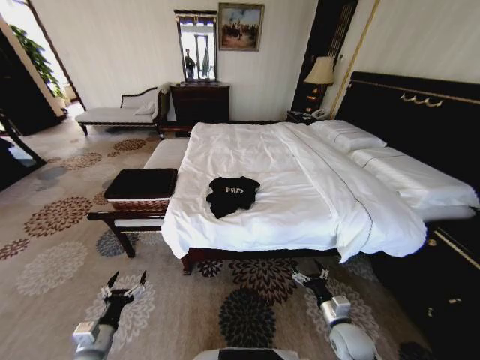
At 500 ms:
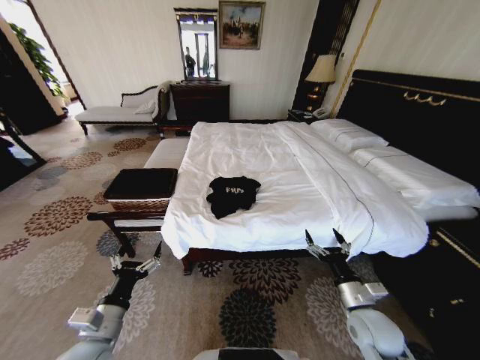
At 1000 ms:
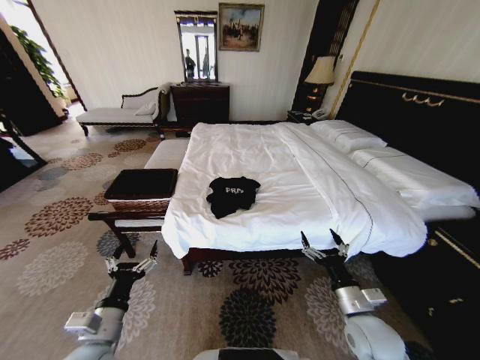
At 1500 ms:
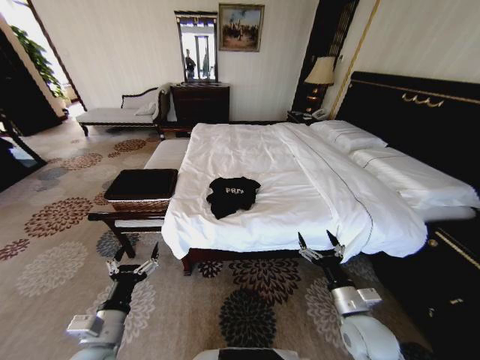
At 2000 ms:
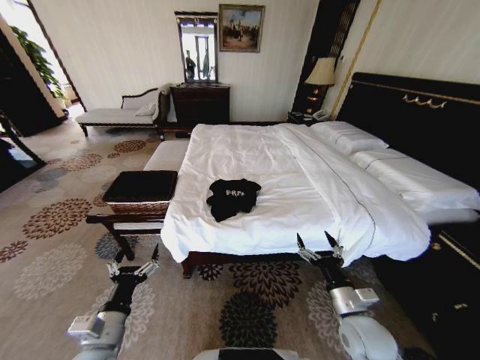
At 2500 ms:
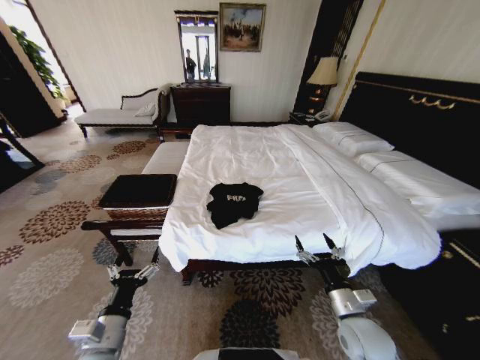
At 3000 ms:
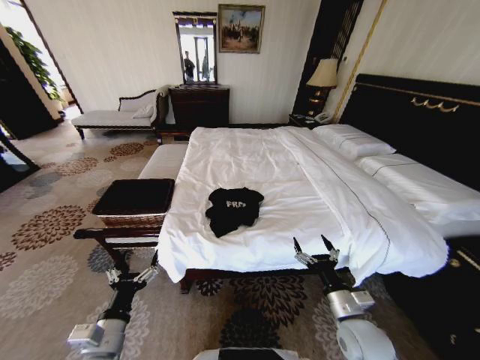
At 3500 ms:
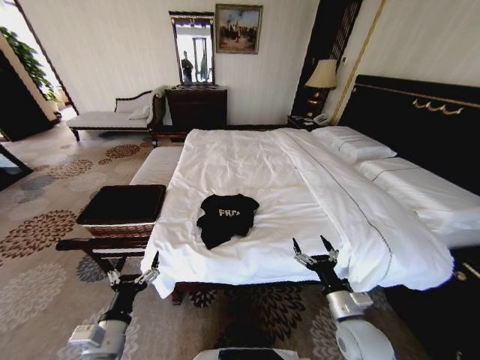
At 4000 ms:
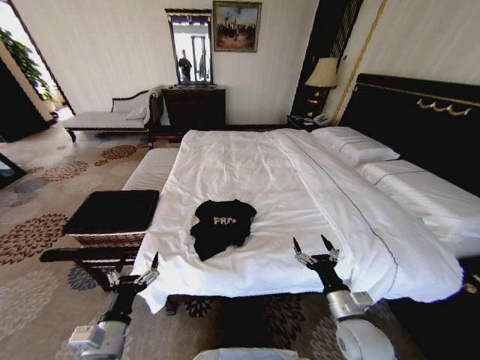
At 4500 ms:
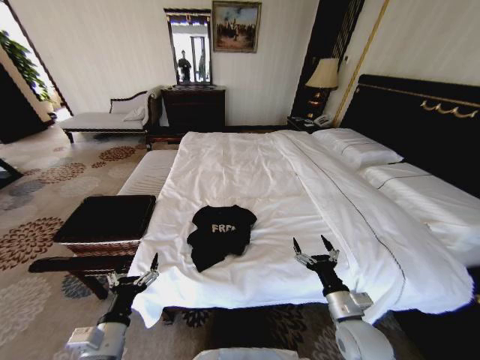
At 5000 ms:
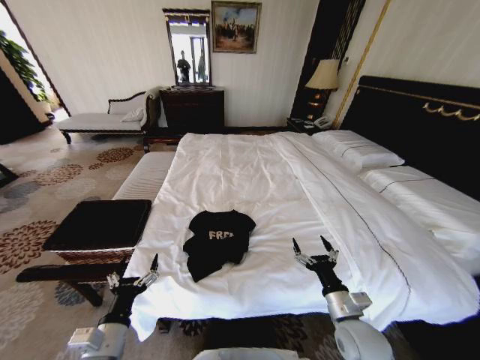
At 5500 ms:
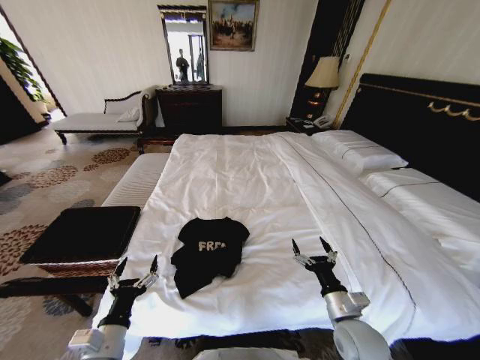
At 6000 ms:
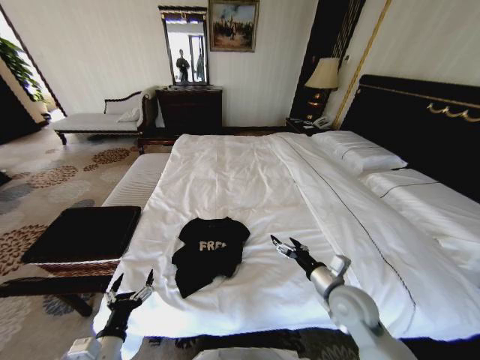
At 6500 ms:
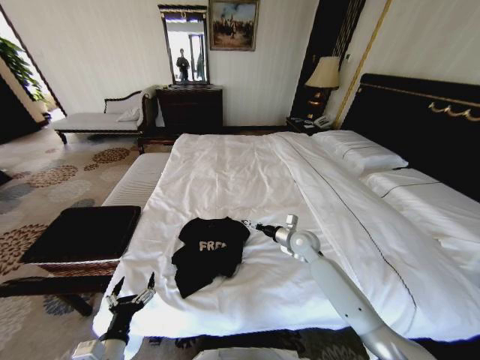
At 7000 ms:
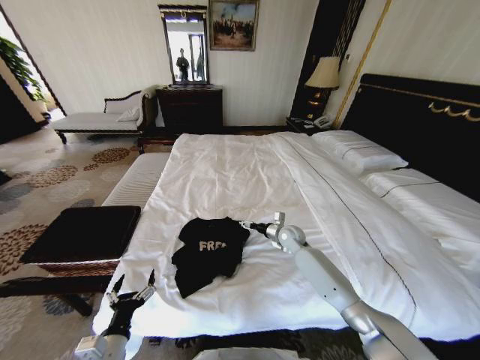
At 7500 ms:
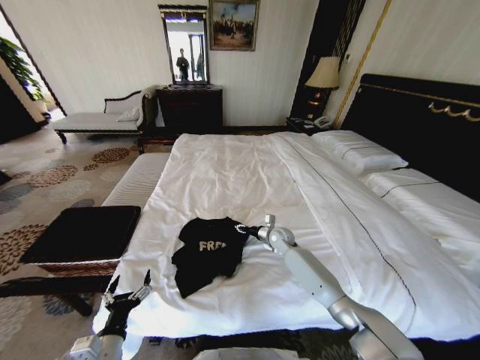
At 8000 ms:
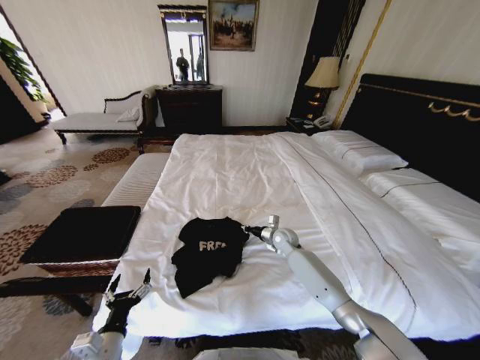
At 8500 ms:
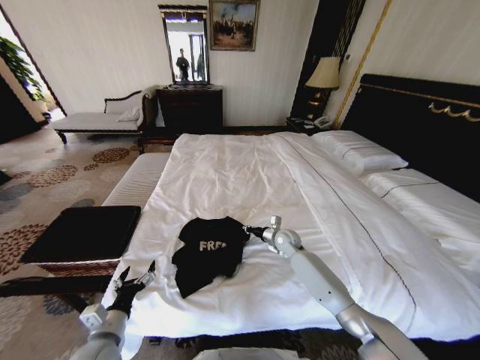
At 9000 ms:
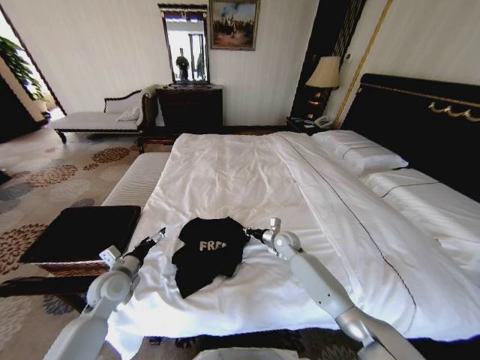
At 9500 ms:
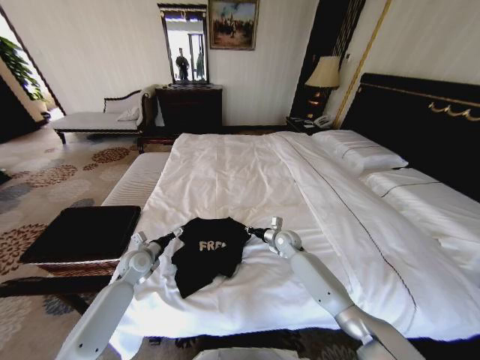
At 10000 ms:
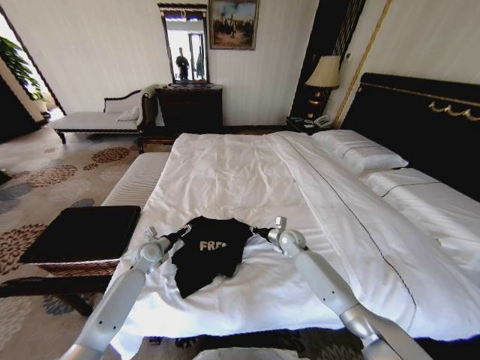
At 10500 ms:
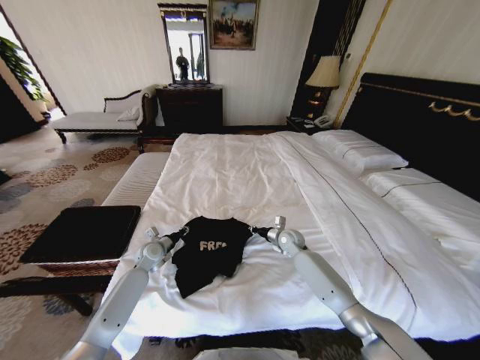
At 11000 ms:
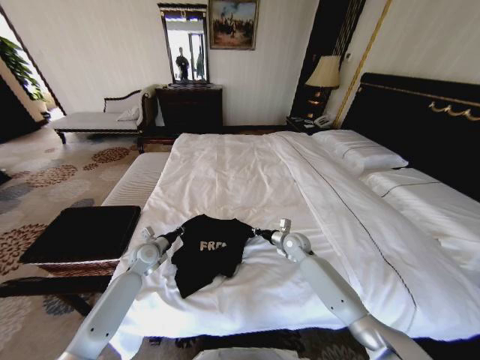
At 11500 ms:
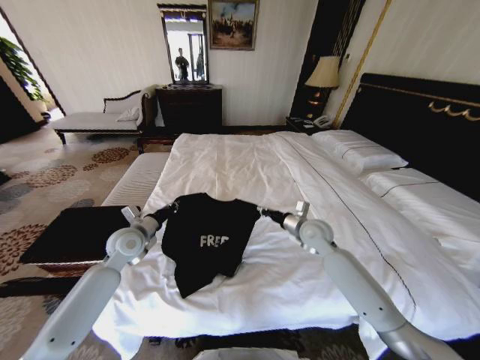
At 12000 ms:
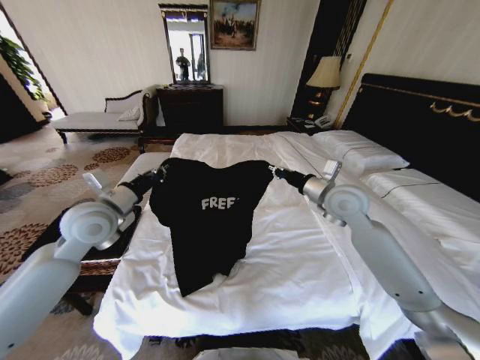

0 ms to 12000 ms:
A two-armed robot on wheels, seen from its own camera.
Task of the whole recording: Fold the clothes on the bed and place them into the basket.
4000 ms to 6000 ms: The right gripper goes some 5 cm forward.
6000 ms to 8000 ms: The right gripper goes roughly 25 cm forward, and closes up.
8000 ms to 10000 ms: The left gripper travels forward by about 30 cm.
10000 ms to 12000 ms: The two grippers go about 25 cm upward. The left gripper closes up.

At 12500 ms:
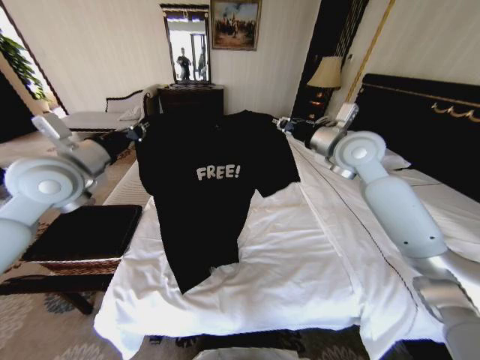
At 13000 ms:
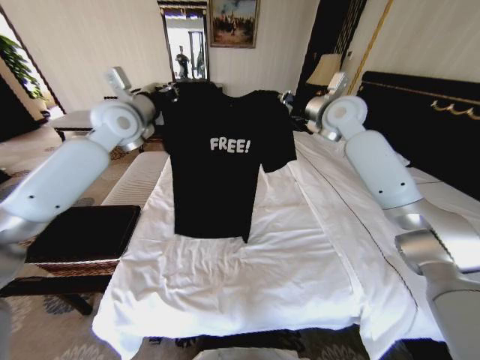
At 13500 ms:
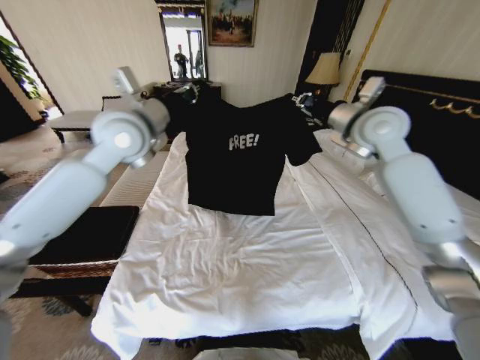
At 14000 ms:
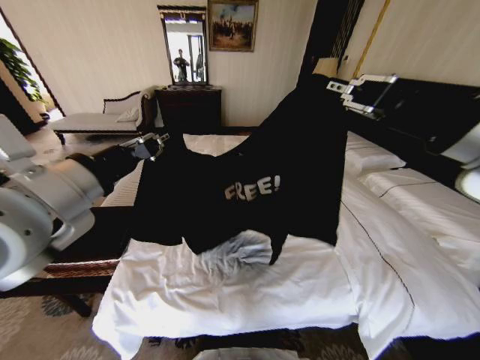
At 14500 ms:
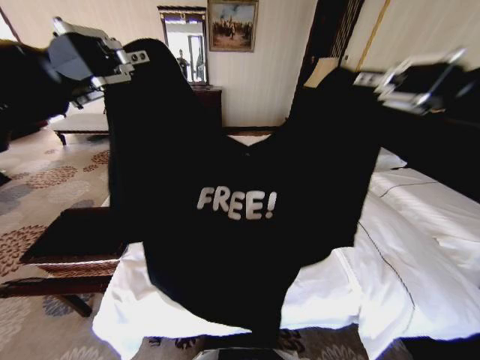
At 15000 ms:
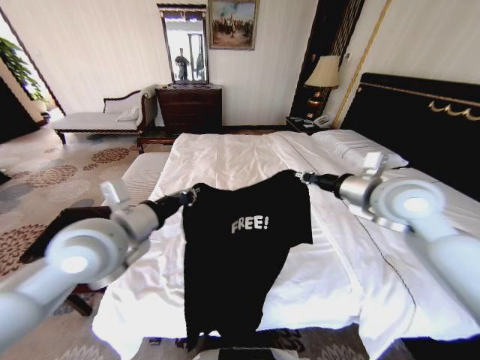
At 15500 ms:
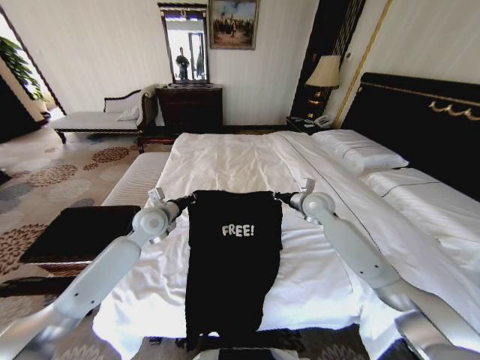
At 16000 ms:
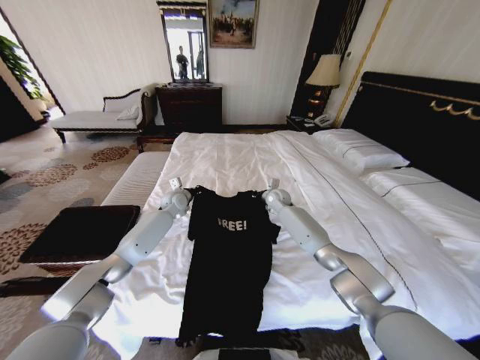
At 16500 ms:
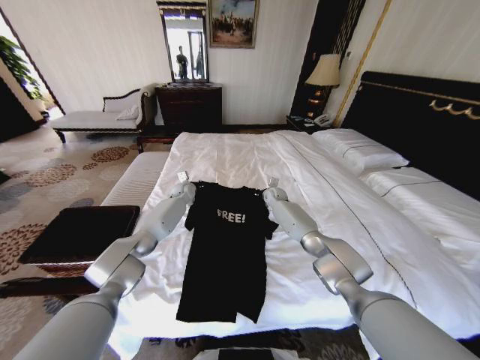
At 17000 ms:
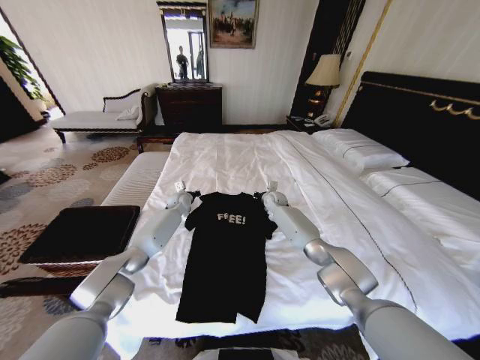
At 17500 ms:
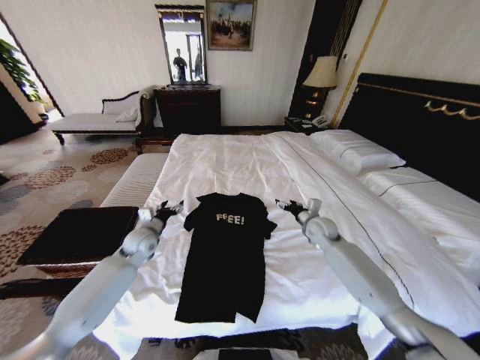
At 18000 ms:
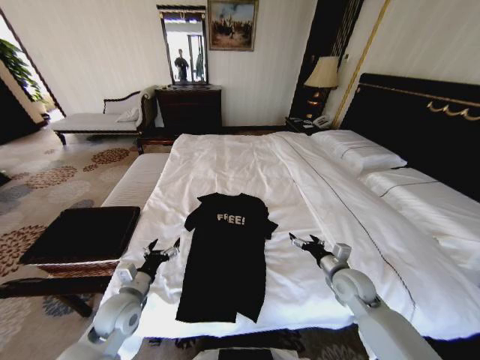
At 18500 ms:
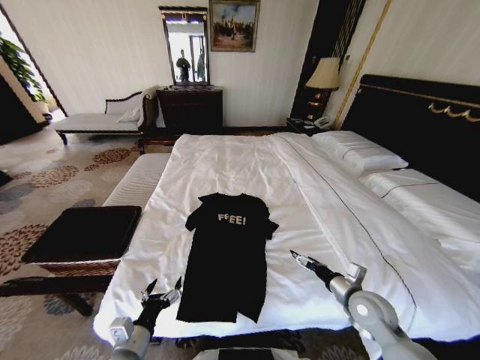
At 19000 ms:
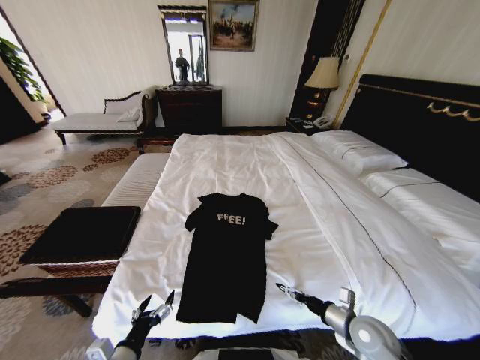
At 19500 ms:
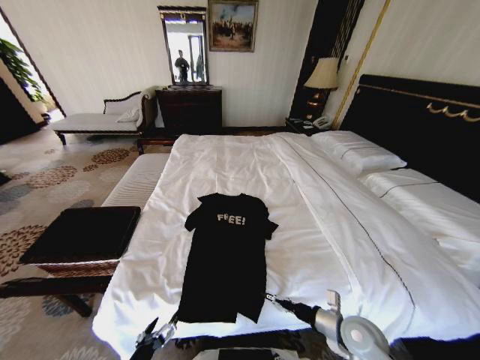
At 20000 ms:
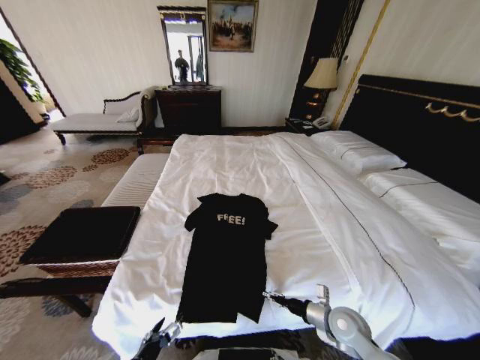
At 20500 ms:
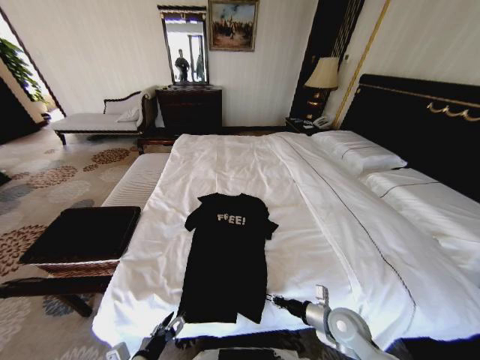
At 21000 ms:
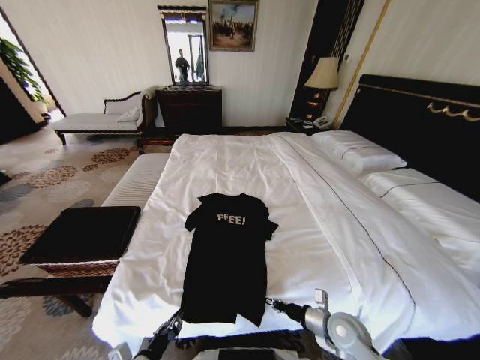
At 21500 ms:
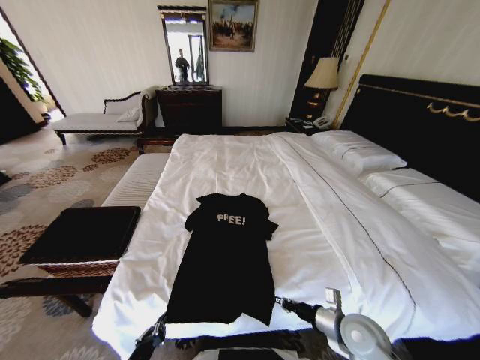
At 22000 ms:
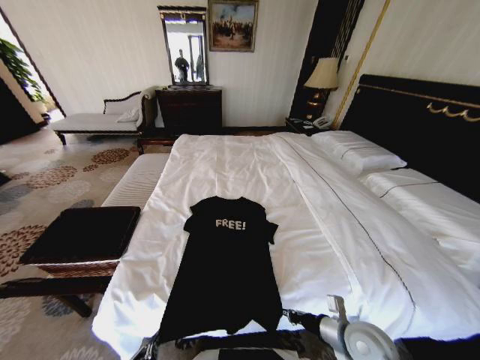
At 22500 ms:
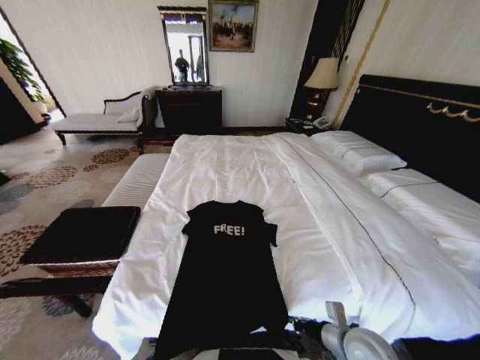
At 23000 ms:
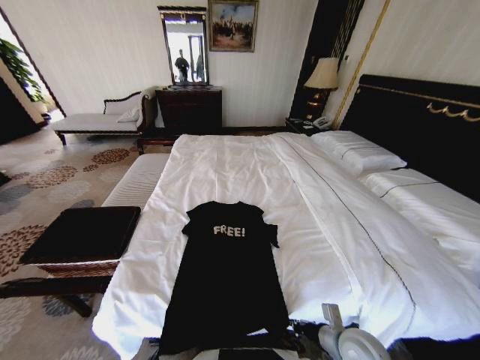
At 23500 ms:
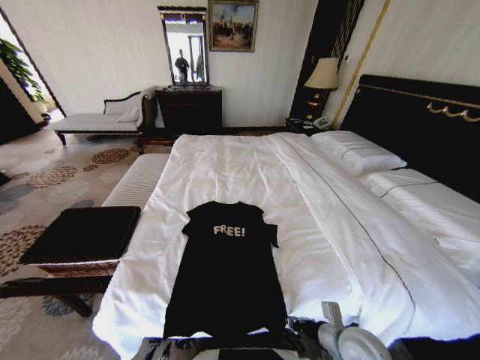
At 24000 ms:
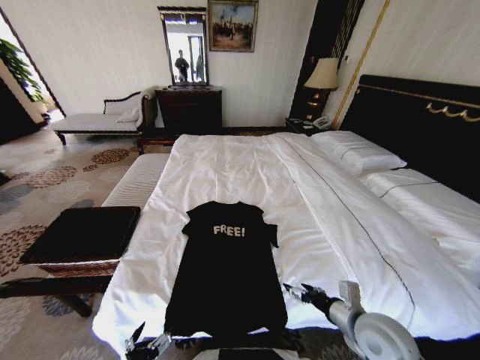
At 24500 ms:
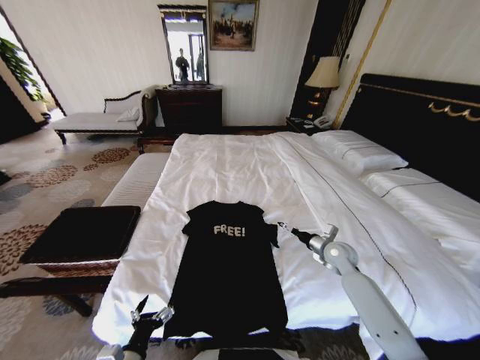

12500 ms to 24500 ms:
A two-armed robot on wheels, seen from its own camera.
Task of the whole recording: Fold the clothes on the bed and place them into the basket.
12500 ms to 14500 ms: Both grippers travel together backward and upward, some 30 cm.
14500 ms to 16500 ms: The grippers both shift forward and downward by about 70 cm.
16500 ms to 18500 ms: The grippers both shift backward by about 50 cm. The right gripper opens; the left gripper opens its fingers.
18500 ms to 20500 ms: The left gripper shifts by about 5 cm, while the right gripper is displaced downward by roughly 5 cm, and closes.
20500 ms to 22500 ms: The left gripper heads backward, covering some 10 cm, and closes; the right gripper heads backward and upward, covering some 10 cm.
22500 ms to 24500 ms: The left gripper shifts approximately 10 cm forward, and opens its fingers, while the right gripper shifts some 20 cm forward, and opens up.

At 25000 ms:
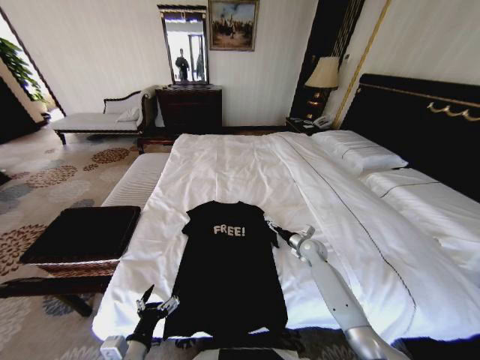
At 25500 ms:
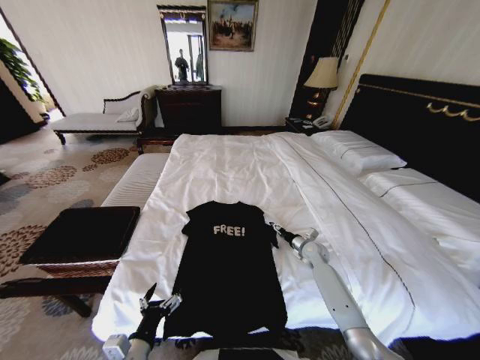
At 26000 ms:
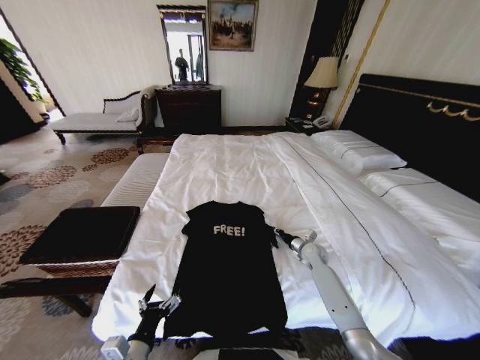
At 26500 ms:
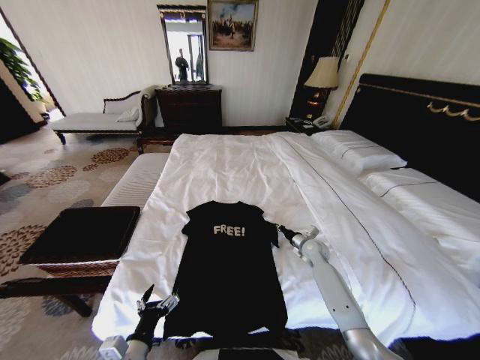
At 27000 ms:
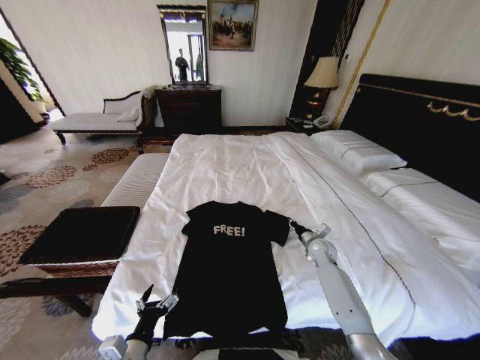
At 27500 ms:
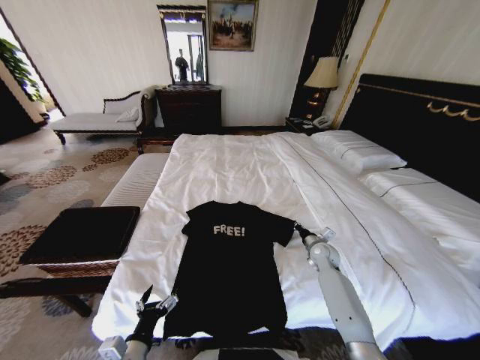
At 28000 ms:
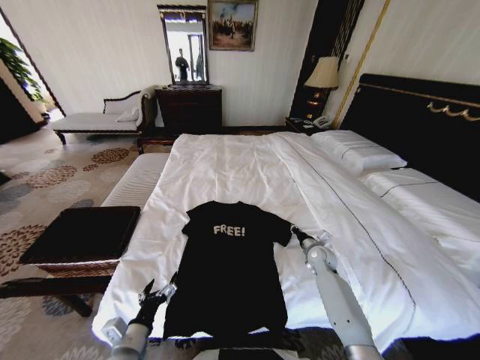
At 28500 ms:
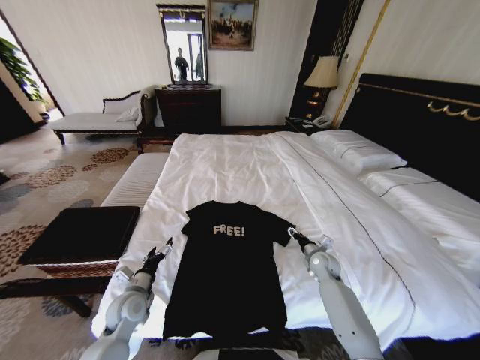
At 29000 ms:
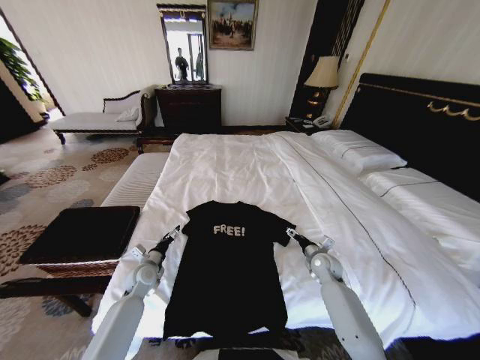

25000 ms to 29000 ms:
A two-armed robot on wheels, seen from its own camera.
Task of the whole recording: Fold the clothes on the bed and place them into the basket.
25000 ms to 27000 ms: The right gripper closes its fingers.
27000 ms to 29000 ms: The right gripper travels backward by some 5 cm, and opens. Meanwhile the left gripper goes roughly 25 cm forward.
